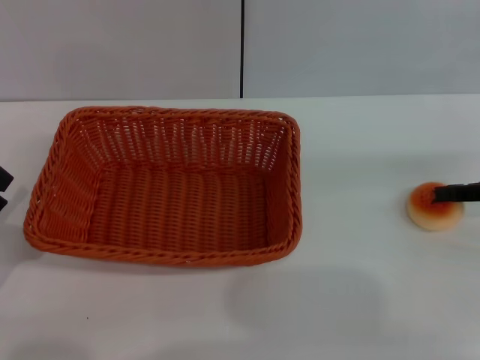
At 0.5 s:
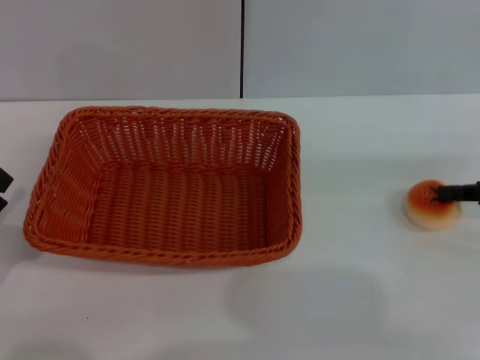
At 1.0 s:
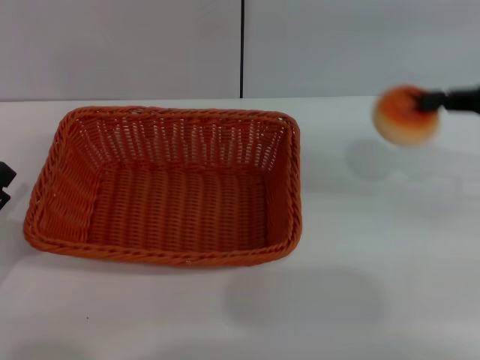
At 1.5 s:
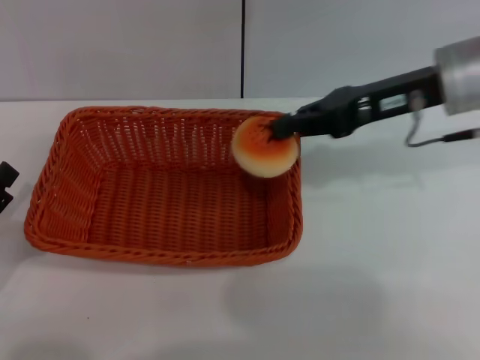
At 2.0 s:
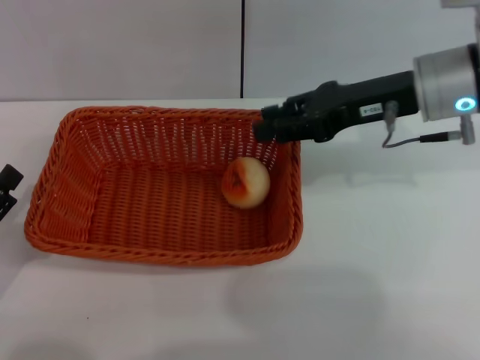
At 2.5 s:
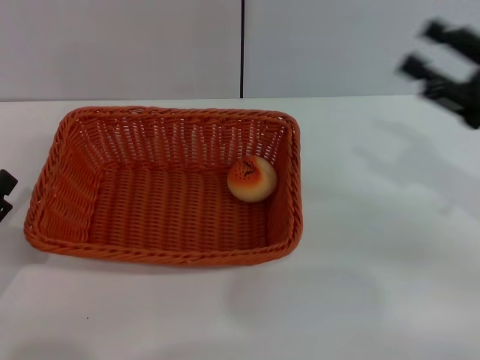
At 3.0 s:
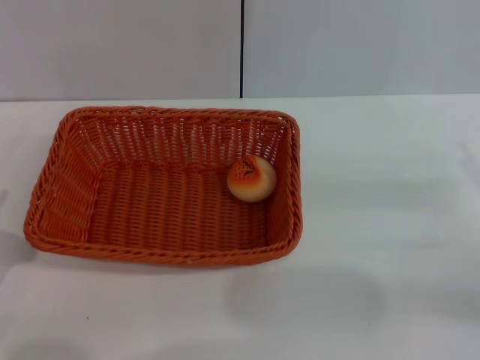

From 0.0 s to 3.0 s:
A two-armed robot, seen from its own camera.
Step, from 1.0 s to 2.0 s: Place the egg yolk pastry into the basket with the right gripper.
From 0.0 s to 1.5 s: The right gripper moves to the left and upward, about 20 cm, and closes up.
From 1.5 s to 3.0 s: The right gripper goes roughly 25 cm backward, to the right and downward, and opens.
